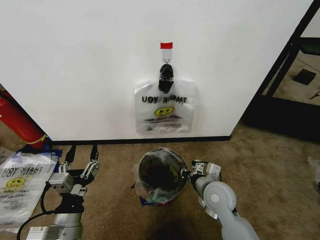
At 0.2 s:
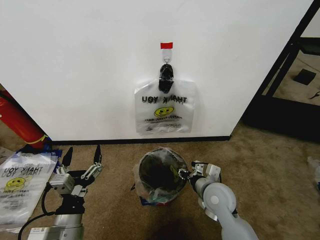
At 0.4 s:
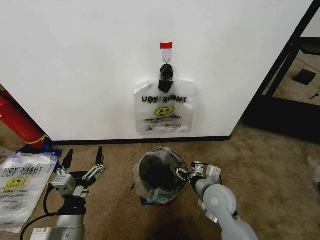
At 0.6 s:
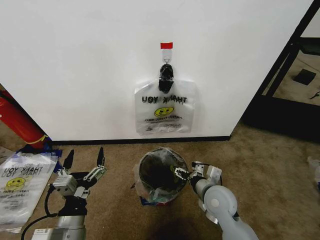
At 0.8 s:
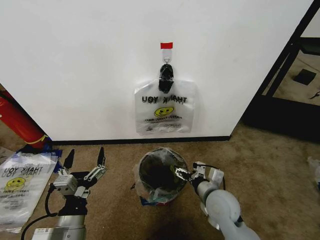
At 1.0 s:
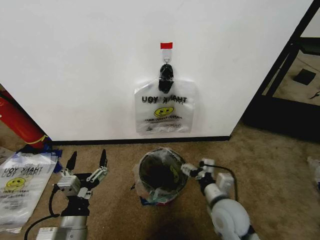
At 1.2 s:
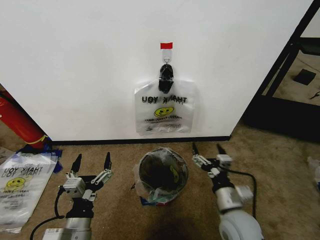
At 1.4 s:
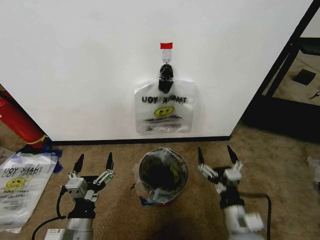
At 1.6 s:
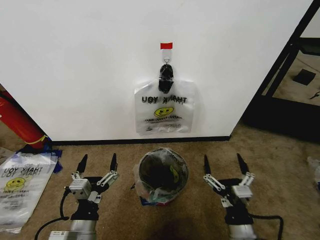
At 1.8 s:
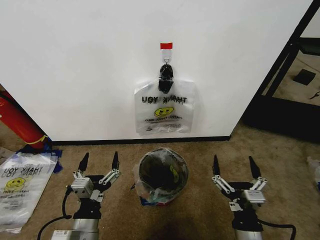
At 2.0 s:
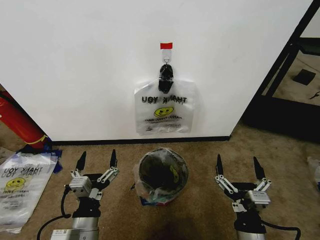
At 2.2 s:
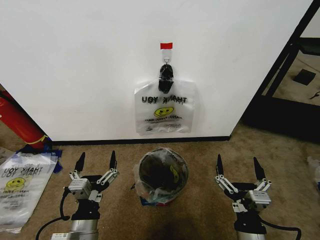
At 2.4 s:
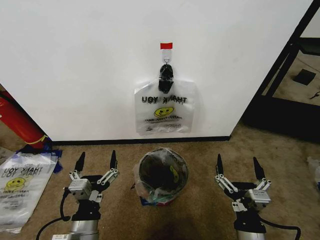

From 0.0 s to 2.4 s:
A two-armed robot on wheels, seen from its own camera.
Task of the whole recording: Pick up the garbage bag from the wall and place it over the trash bin.
From 0.0 s to 1.2 s: The right gripper moves backward, some 10 cm, and opens.
From 1.2 s to 2.4 s: The right gripper goes some 10 cm backward.
